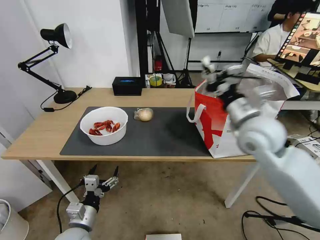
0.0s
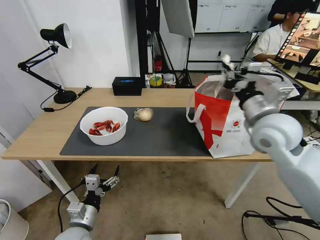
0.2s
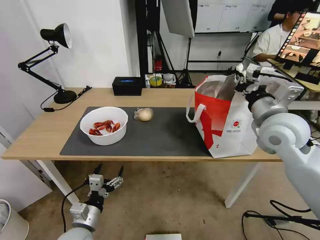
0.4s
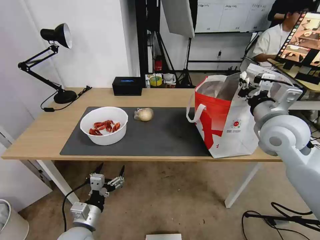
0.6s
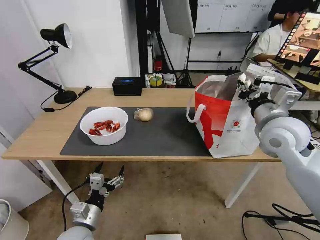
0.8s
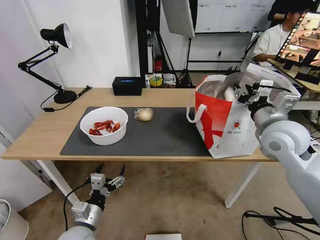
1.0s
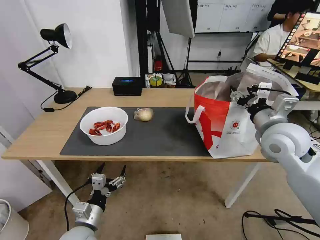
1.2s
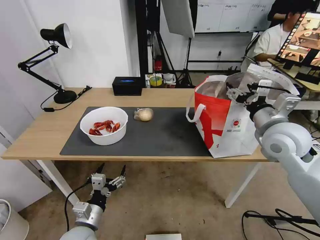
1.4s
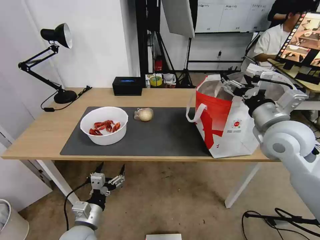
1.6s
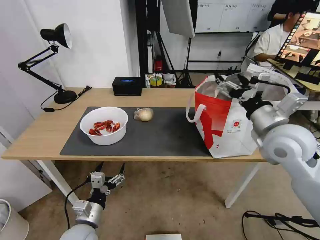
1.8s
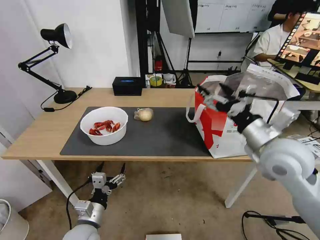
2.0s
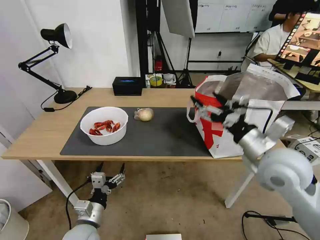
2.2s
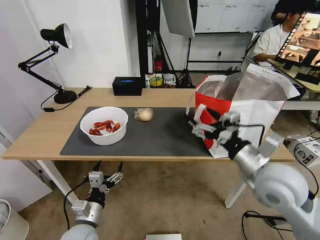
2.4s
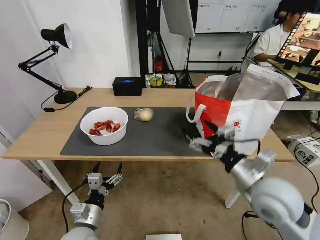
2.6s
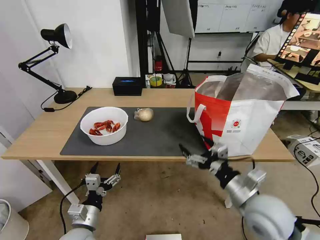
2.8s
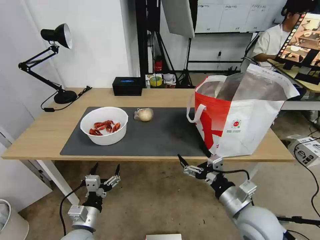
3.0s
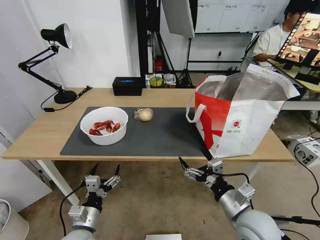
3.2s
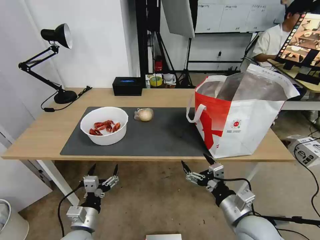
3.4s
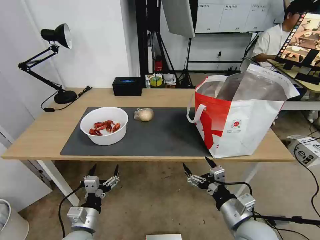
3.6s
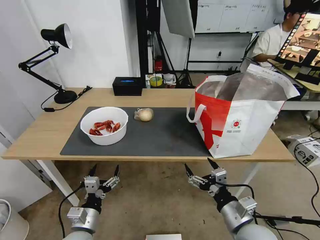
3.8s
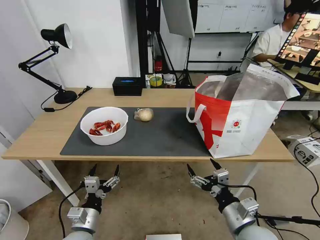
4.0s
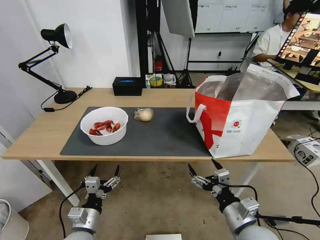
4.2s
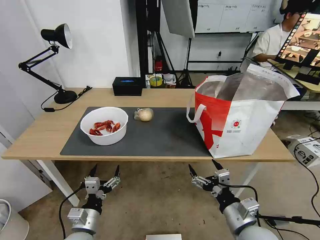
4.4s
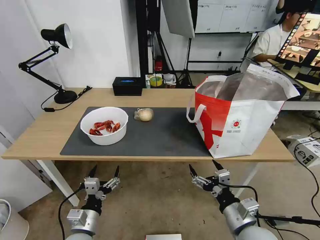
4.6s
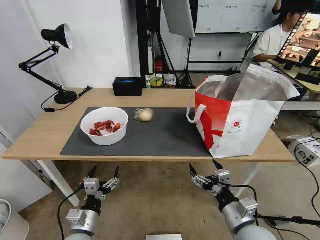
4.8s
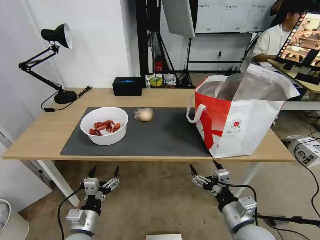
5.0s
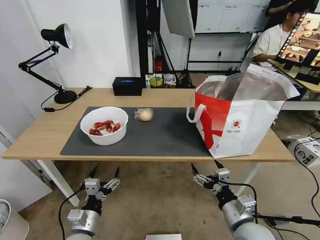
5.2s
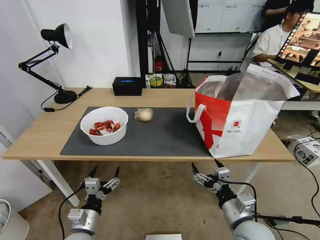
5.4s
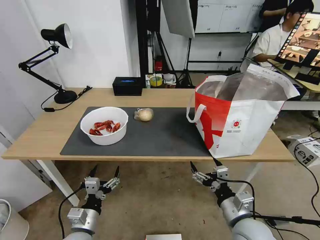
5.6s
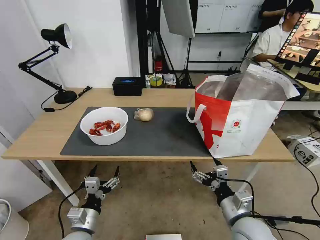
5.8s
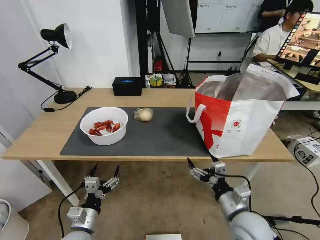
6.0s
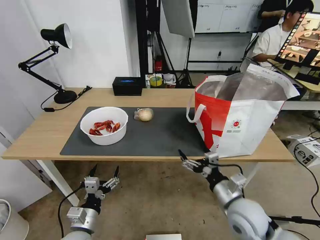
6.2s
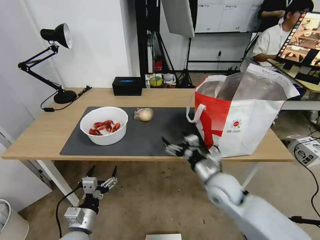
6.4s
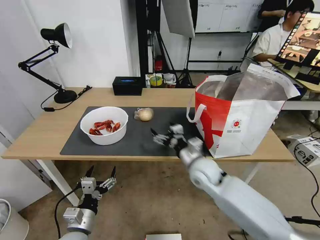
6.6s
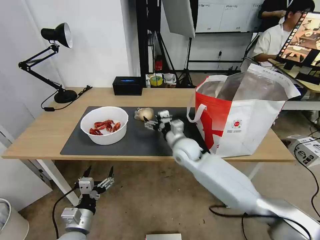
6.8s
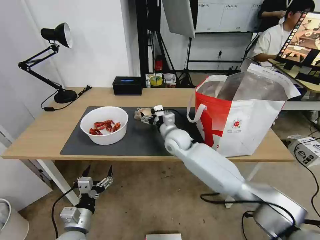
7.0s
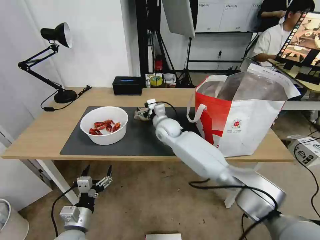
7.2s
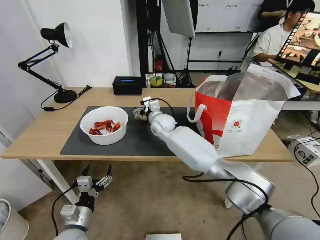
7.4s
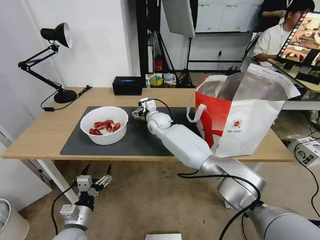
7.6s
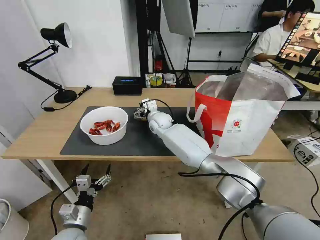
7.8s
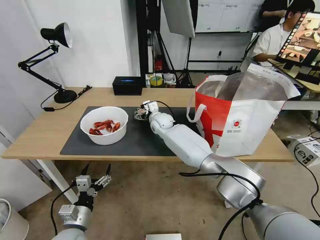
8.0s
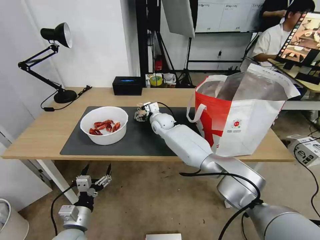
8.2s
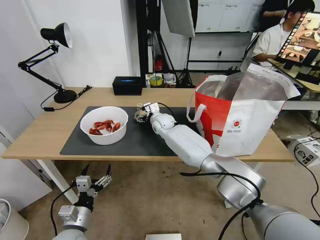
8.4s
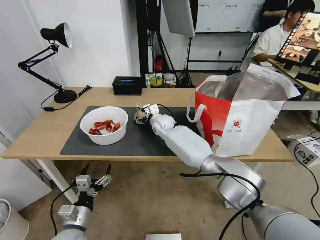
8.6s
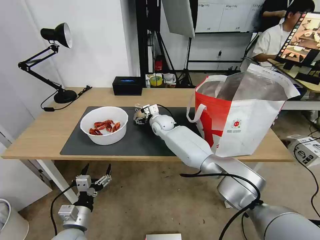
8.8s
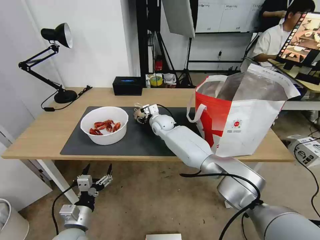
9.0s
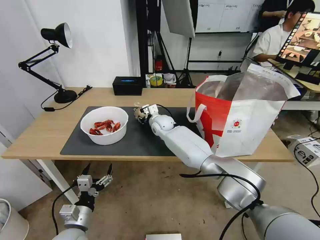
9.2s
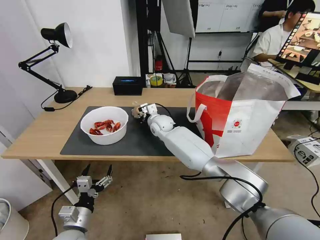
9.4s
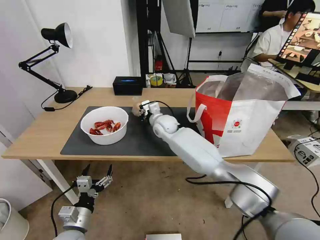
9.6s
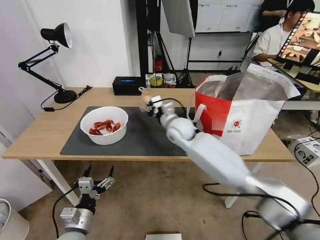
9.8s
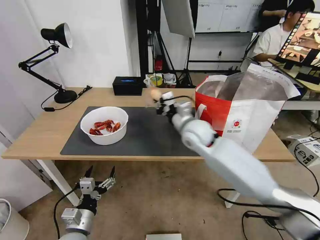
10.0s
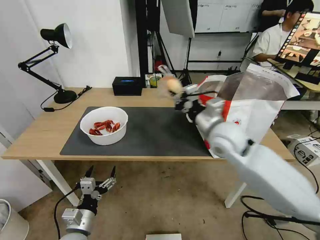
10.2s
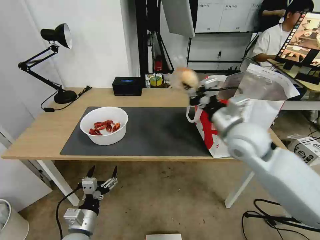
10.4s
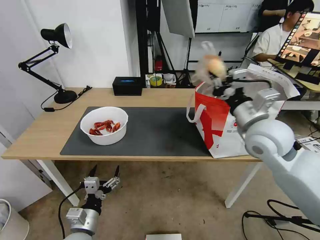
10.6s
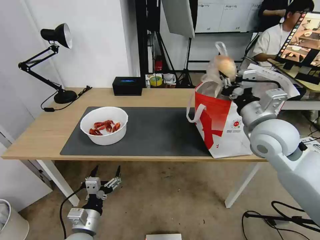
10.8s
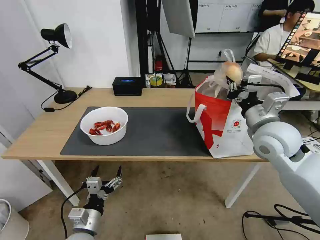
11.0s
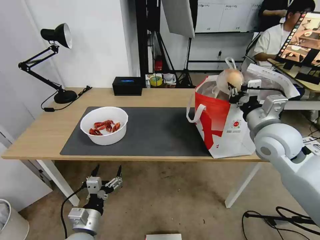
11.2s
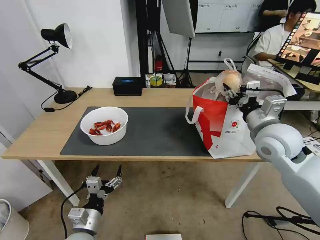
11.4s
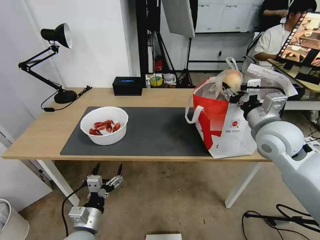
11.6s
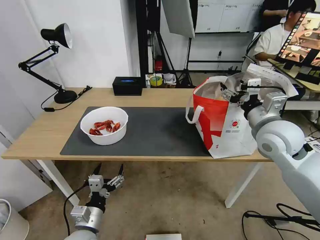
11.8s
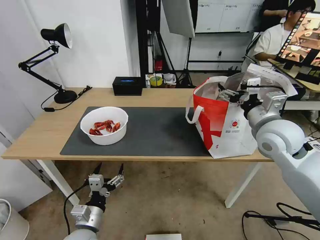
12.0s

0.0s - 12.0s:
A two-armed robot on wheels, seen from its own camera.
Task of the whole recording: Pick up the trash from the table and place it into the takeout bag.
0.0s - 1.6s: The right gripper moves to the right, approximately 5 cm, and opens up.
1.6s - 3.0s: The right gripper moves downward and backward, approximately 25 cm.
3.0s - 6.0s: The grippers make only small movements.
6.0s - 7.6s: The right gripper heads forward and to the left, covering about 40 cm.
7.6s - 9.0s: The grippers move only a little.
9.0s - 10.4s: The right gripper shifts some 35 cm backward, to the right and upward, and closes up.
10.4s - 12.0s: The right gripper moves to the right, roughly 10 cm, and opens its fingers.

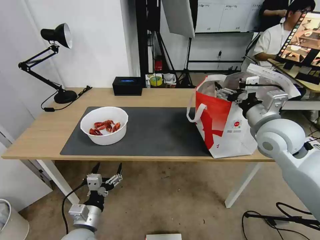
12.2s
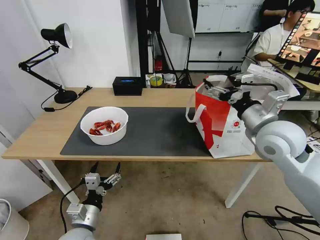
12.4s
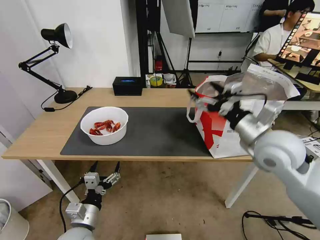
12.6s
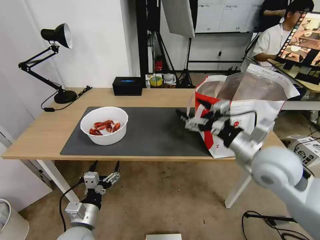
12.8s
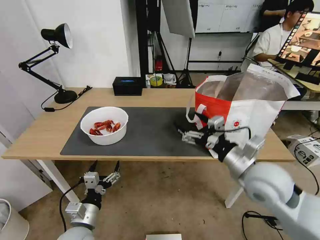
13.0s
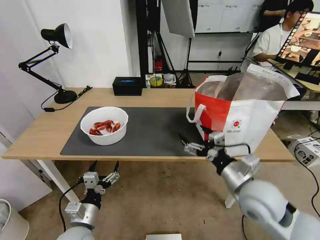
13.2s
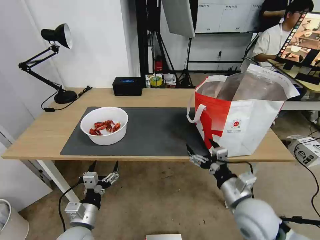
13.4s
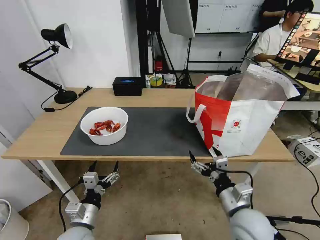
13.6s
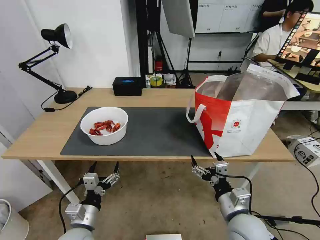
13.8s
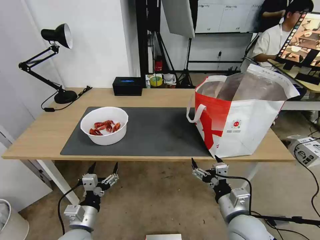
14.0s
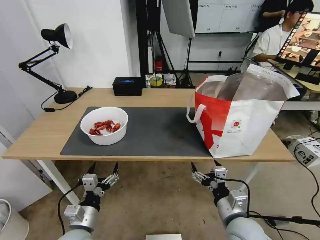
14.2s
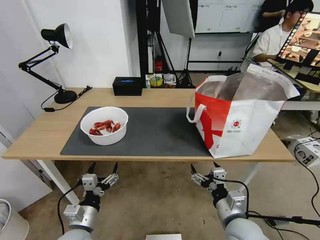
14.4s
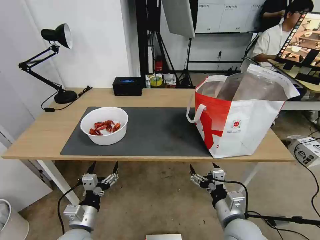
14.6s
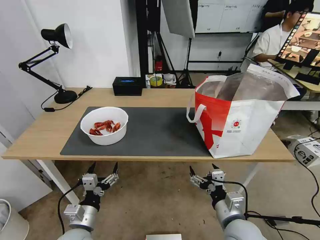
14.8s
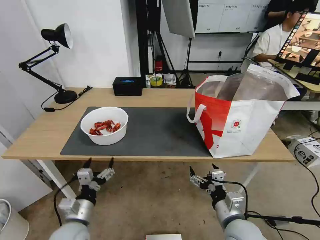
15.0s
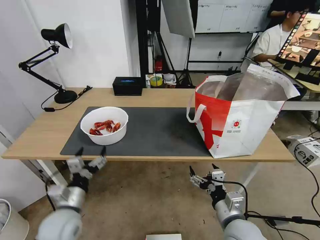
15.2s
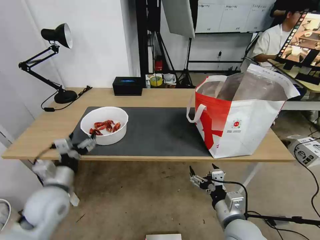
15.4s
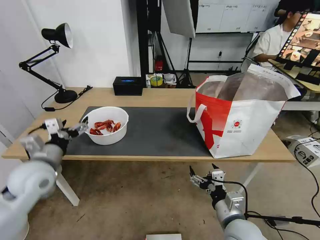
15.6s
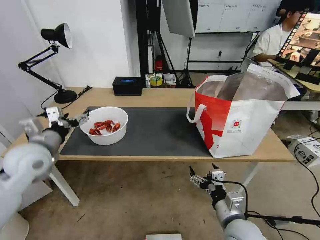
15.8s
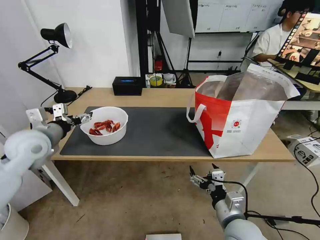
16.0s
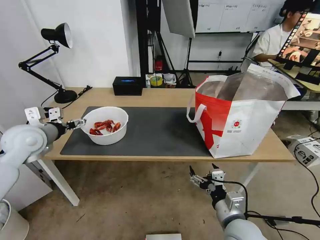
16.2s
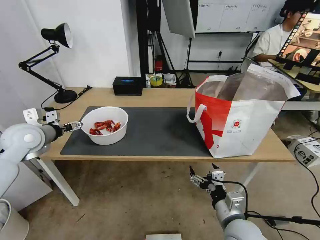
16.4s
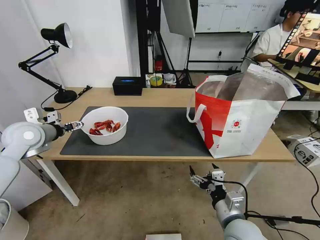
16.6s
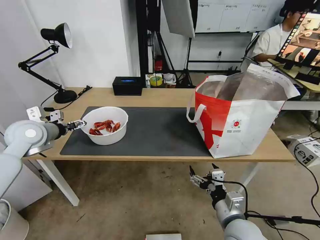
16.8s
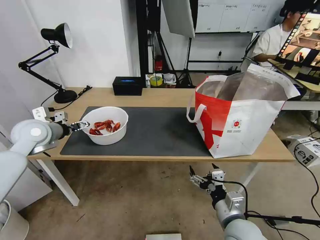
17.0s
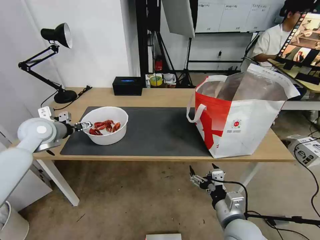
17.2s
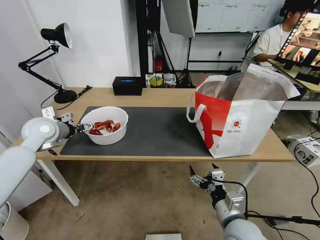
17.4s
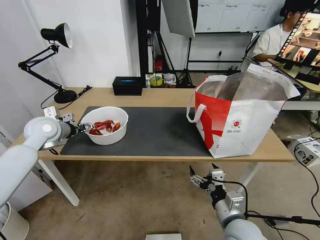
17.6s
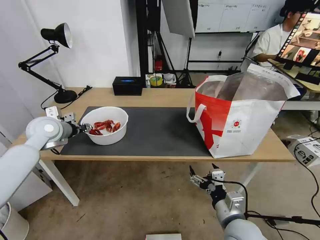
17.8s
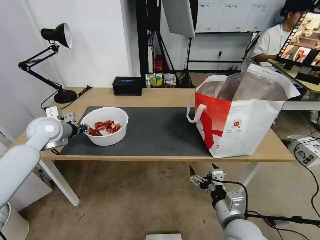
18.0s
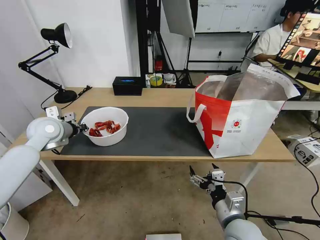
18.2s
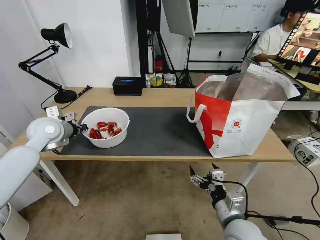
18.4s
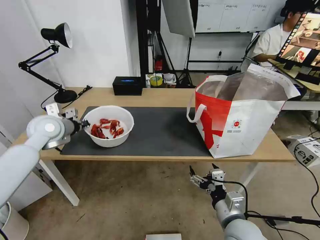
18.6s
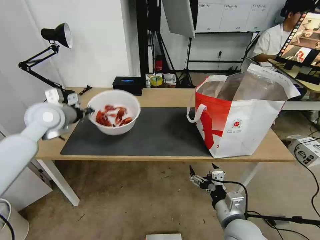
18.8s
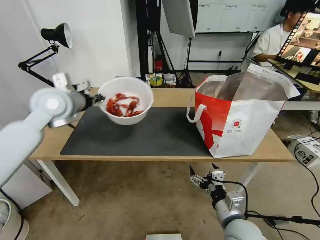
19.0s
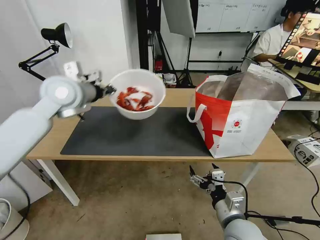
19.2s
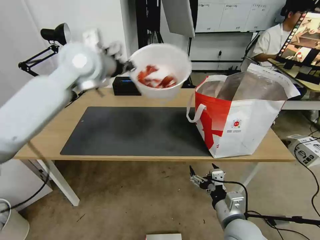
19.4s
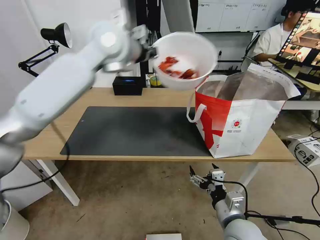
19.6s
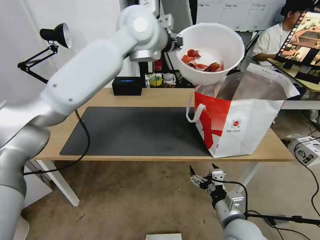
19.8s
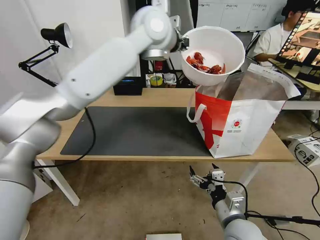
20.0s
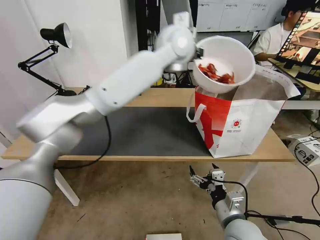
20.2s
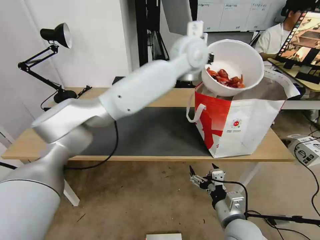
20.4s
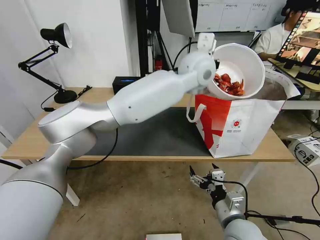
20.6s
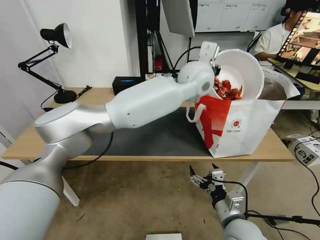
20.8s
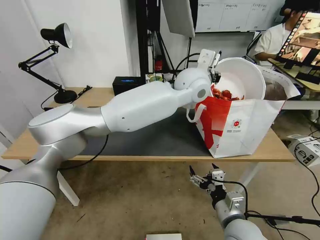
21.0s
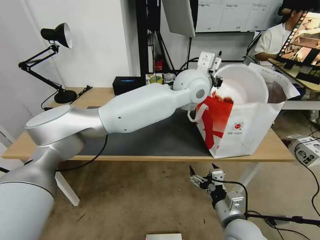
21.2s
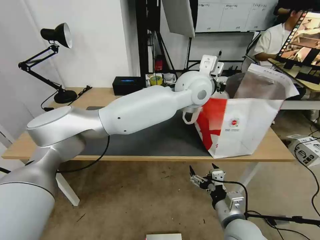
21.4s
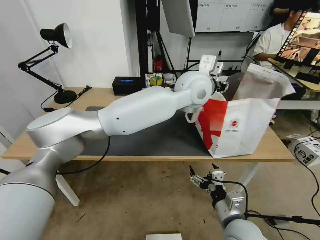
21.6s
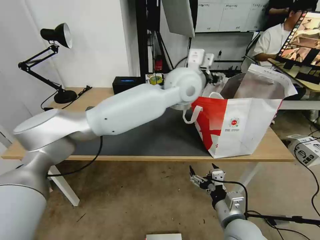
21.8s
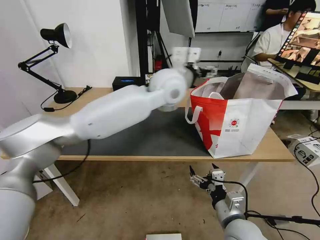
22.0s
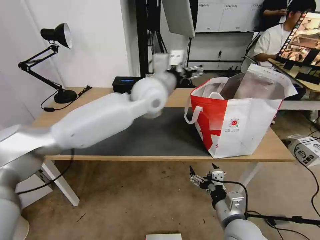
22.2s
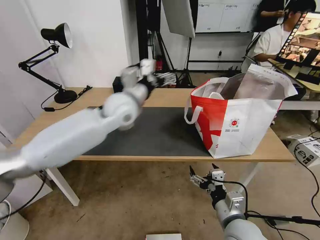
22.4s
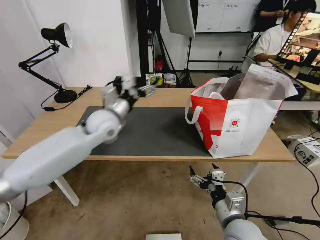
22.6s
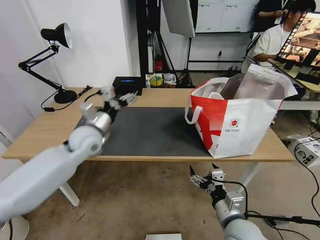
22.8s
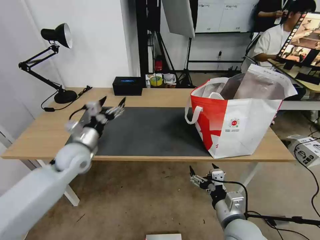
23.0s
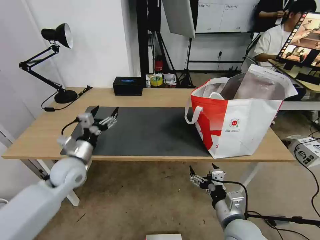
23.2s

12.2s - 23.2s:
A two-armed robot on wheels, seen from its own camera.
Task of the whole recording: Pick up the trash from the table and place it into the takeout bag.
12.2s - 13.8s: The right gripper goes about 25 cm downward and backward.
13.8s - 15.4s: The left gripper goes about 15 cm upward, forward and to the left.
15.4s - 17.0s: The left gripper goes roughly 20 cm forward, upward and to the left.
17.0s - 18.4s: The left gripper closes up.
18.4s - 20.0s: The left gripper heads to the right and upward, covering approximately 40 cm.
20.0s - 21.6s: The left gripper shifts about 15 cm downward, to the right and backward, and opens its fingers.
21.6s - 23.2s: The left gripper heads to the left and downward, covering about 40 cm, and opens up.
